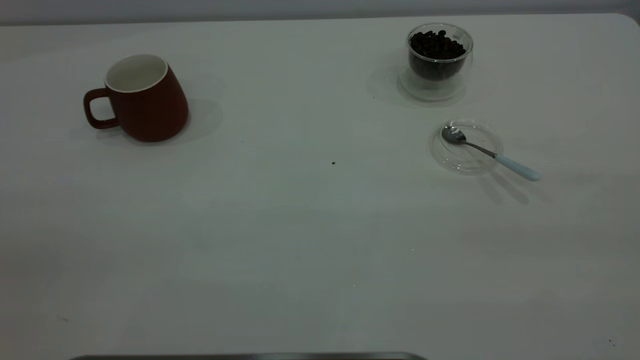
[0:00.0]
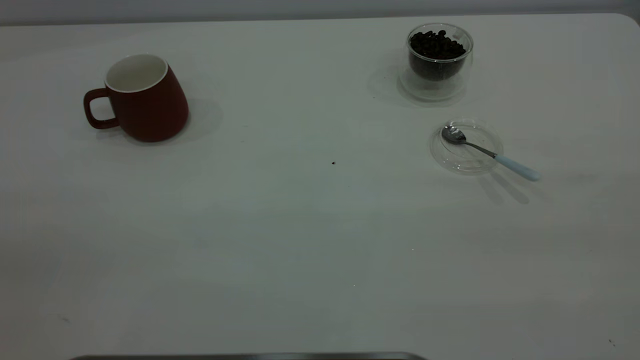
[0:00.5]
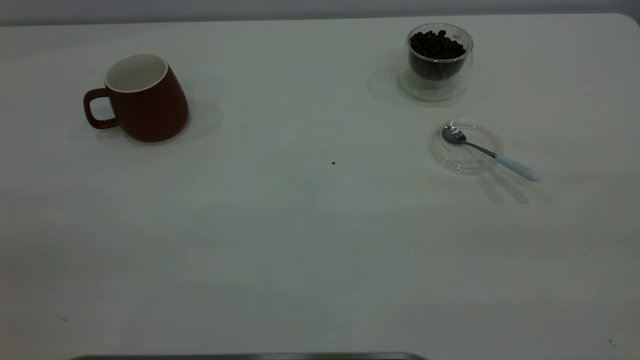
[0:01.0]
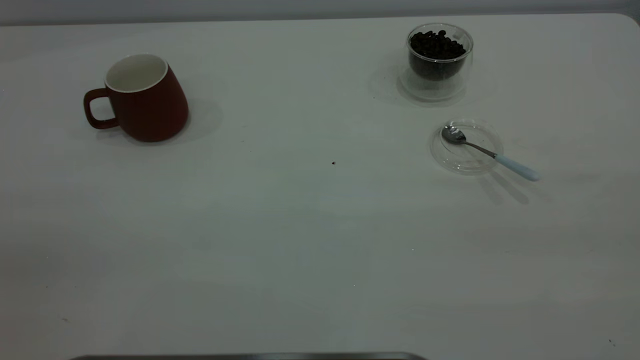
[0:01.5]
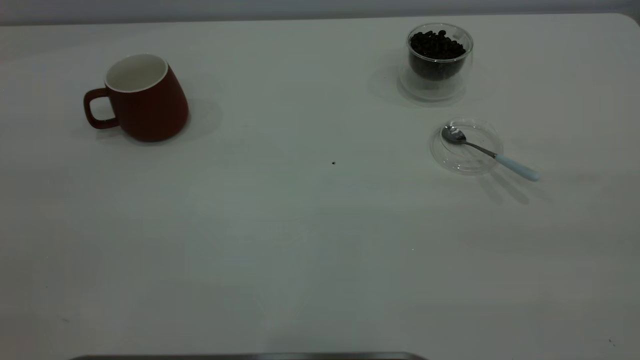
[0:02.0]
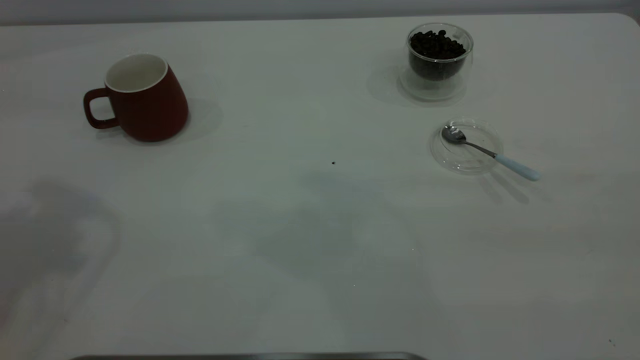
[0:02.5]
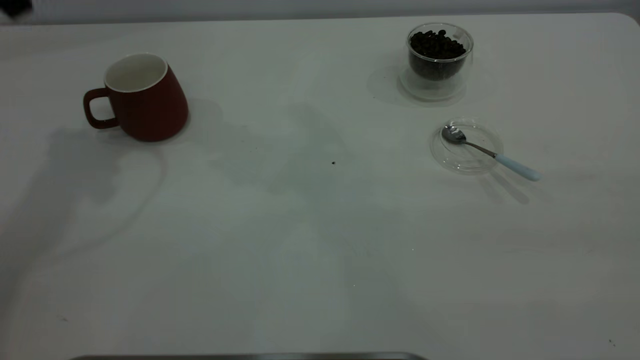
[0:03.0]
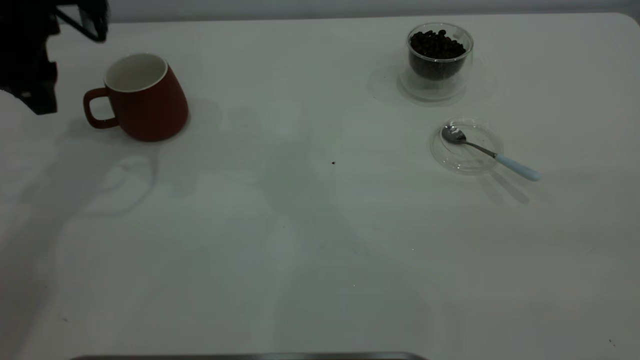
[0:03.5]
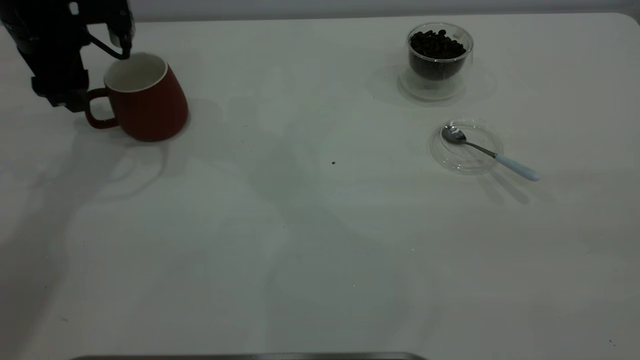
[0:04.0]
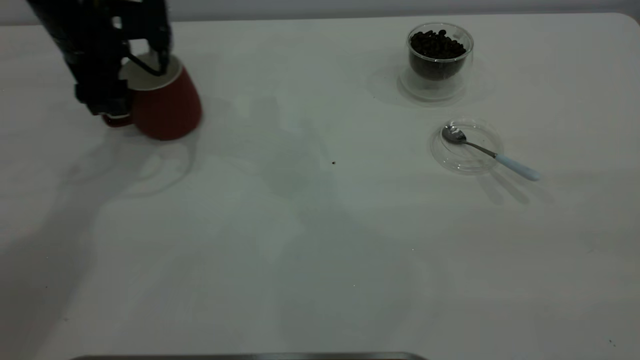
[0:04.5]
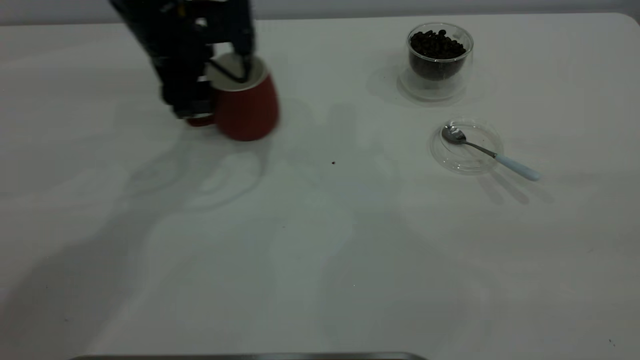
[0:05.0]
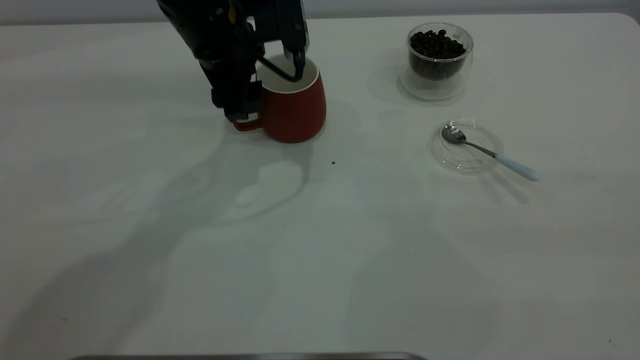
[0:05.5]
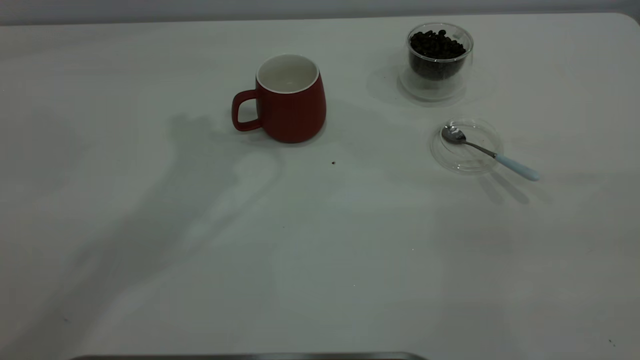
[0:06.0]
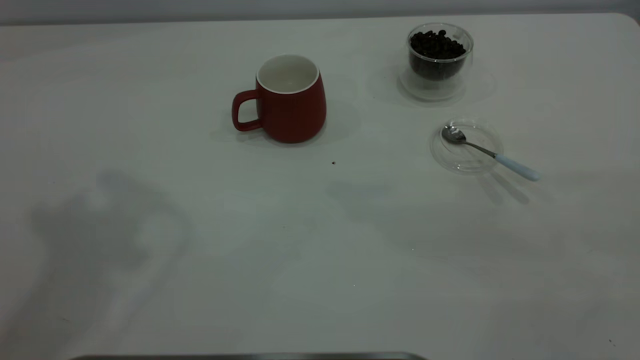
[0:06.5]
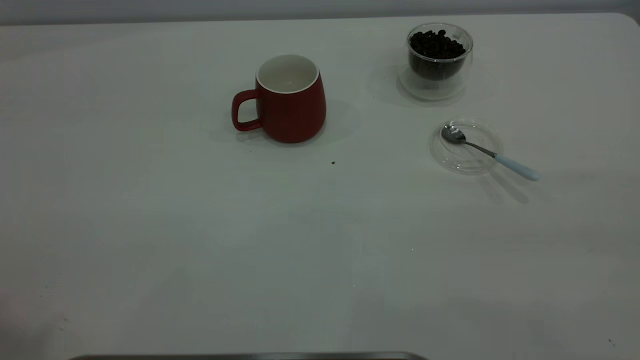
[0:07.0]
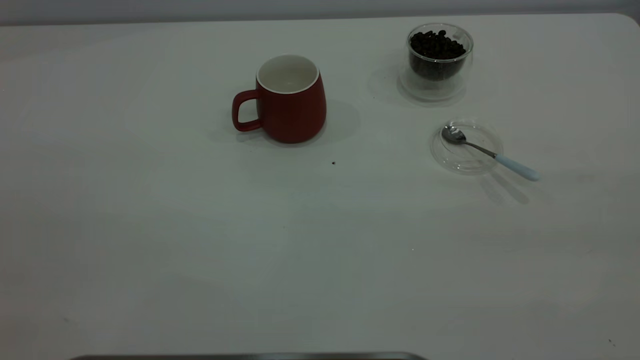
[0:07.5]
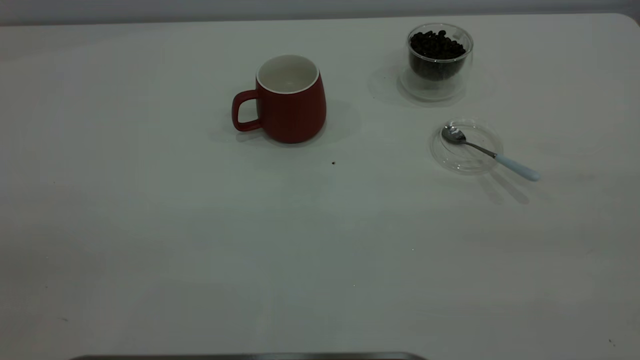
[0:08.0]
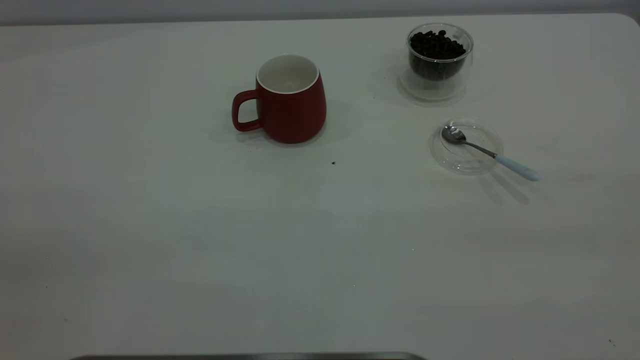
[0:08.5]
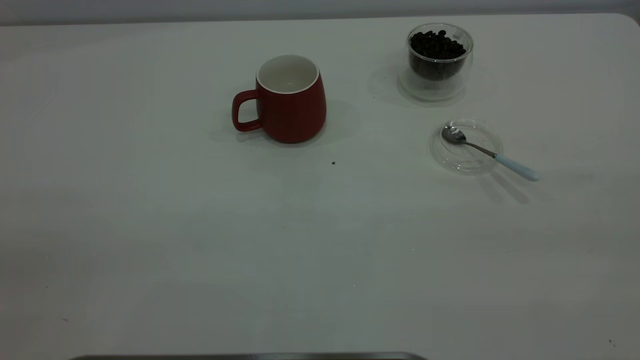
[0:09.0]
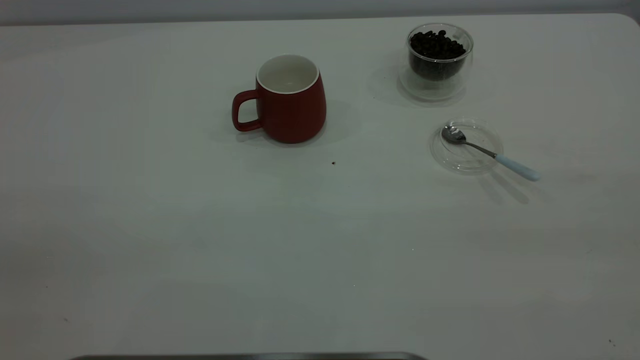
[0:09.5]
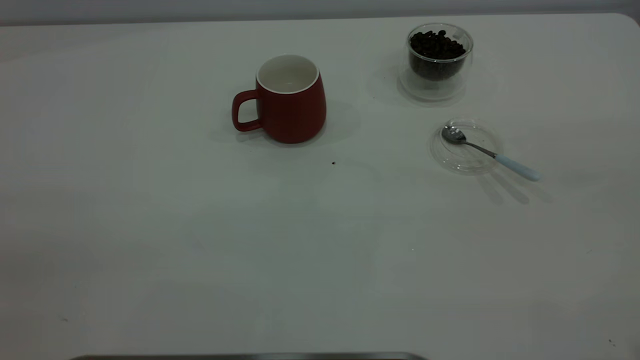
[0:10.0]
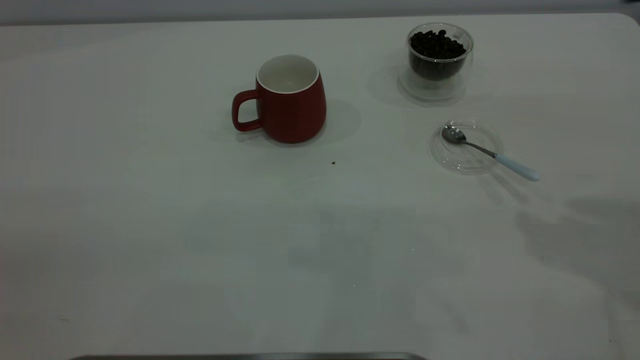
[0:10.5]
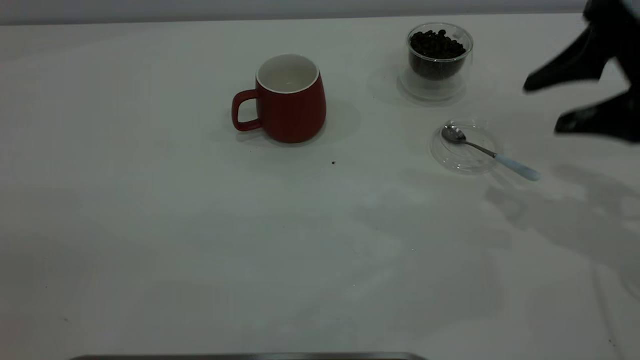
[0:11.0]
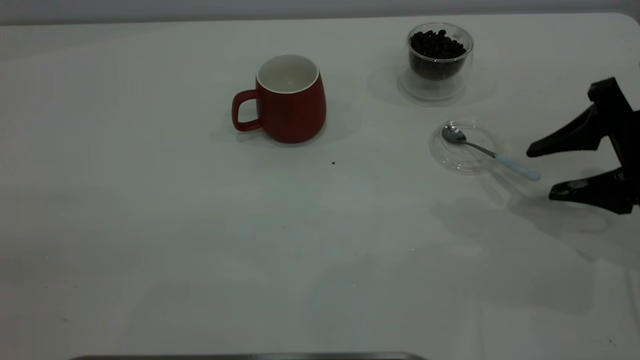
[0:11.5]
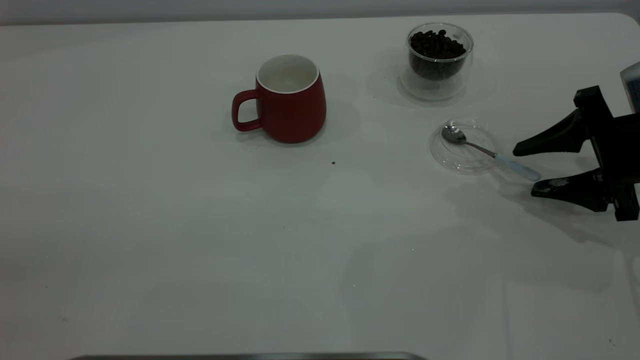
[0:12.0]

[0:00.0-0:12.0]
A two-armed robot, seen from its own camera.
Task of the whole recording: the left gripper place the red cup in the center of the table, the right gripper take the blue spoon from the cup lid and scoop out the coffee beans from the coffee cup and put them into the red cup, the right gripper put the spoon back into the cup lid.
Step, 0:00.0 to 0:05.5: Move the cup to the center of view.
0:02.0 to 0:04.0: The left gripper is displaced forward and downward by roughly 40 cm.
0:04.0 to 0:06.0: The left gripper travels upward and to the right by some 25 cm.
0:10.0 to 0:12.0: The right gripper heads downward and forward, covering roughly 40 cm.

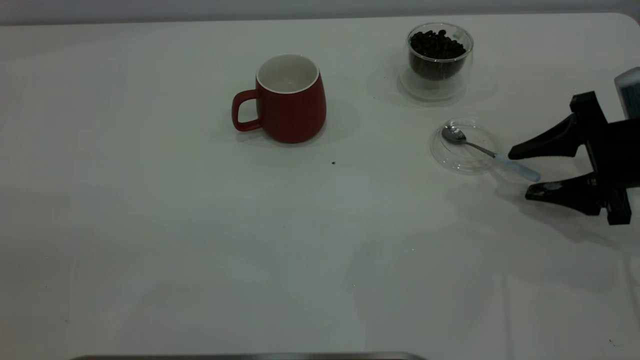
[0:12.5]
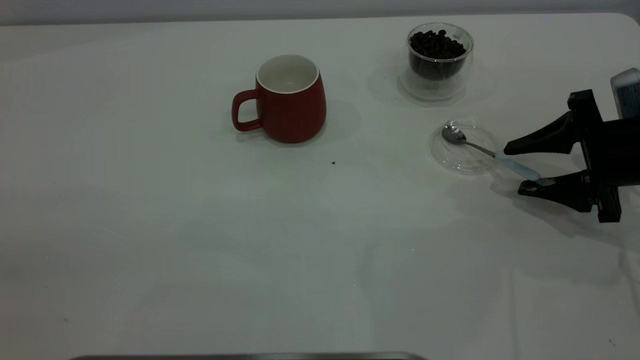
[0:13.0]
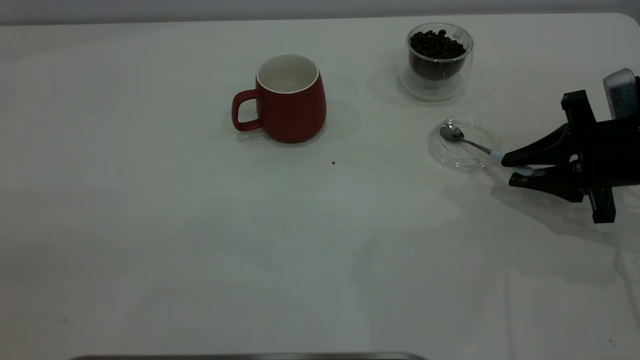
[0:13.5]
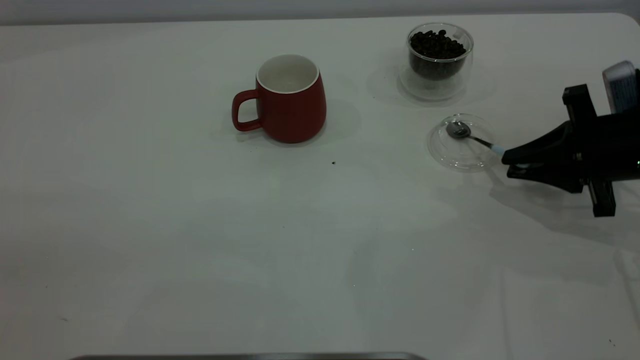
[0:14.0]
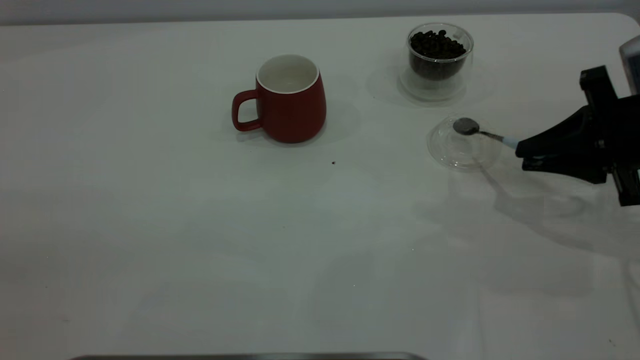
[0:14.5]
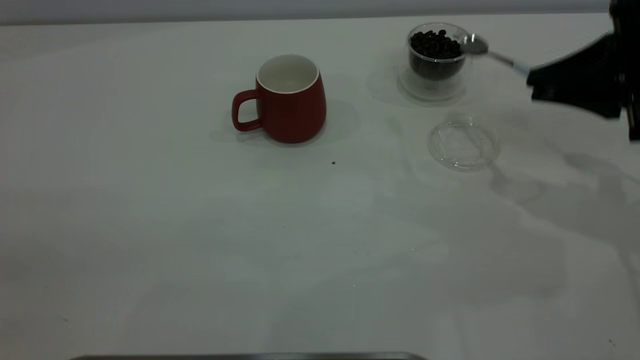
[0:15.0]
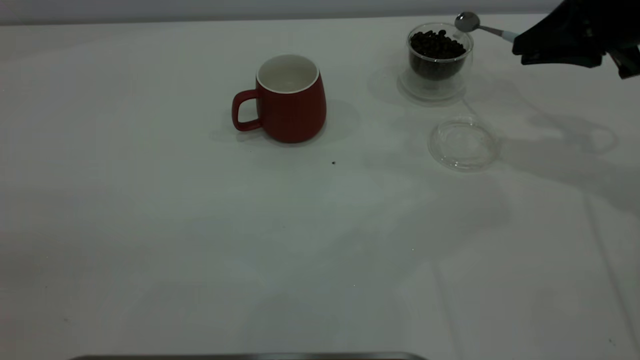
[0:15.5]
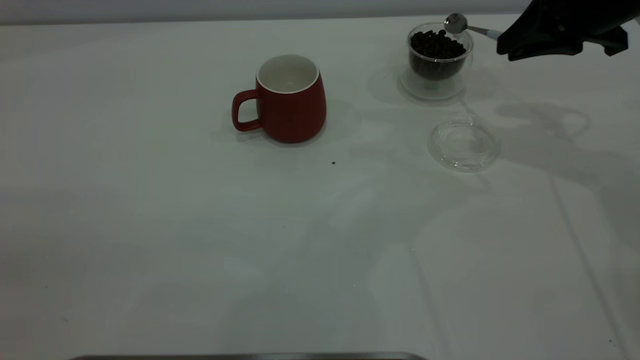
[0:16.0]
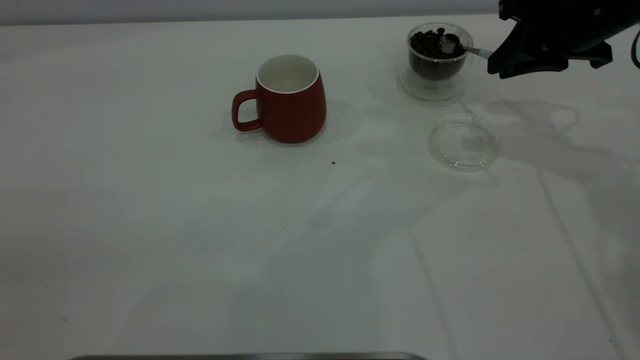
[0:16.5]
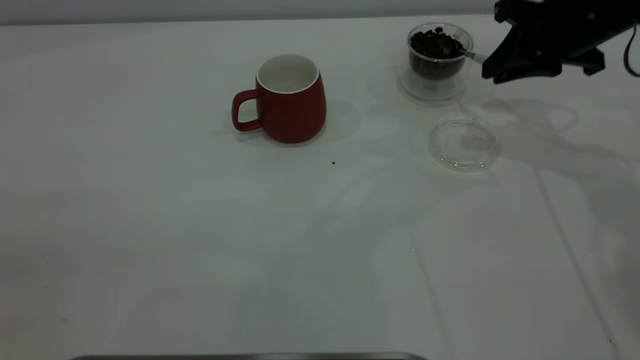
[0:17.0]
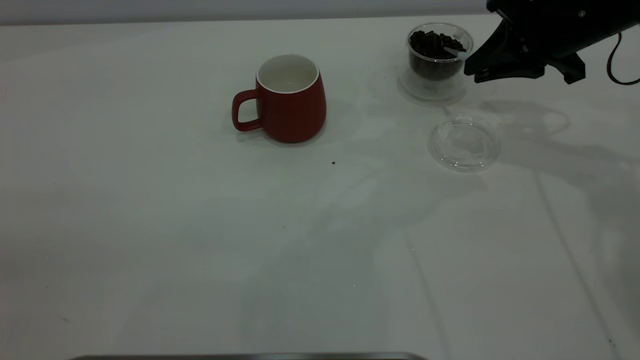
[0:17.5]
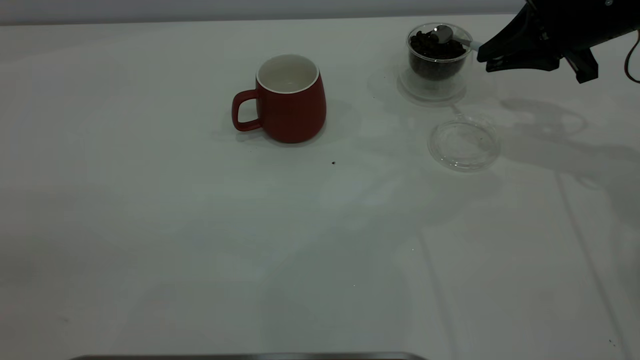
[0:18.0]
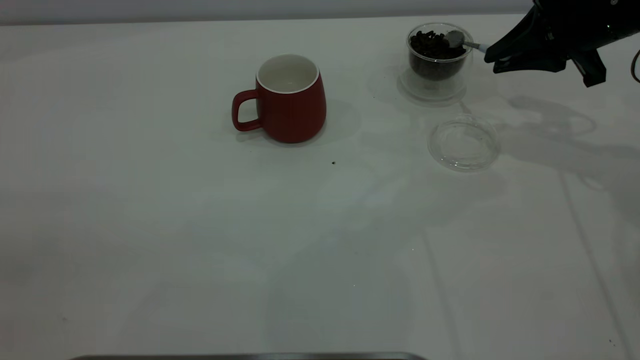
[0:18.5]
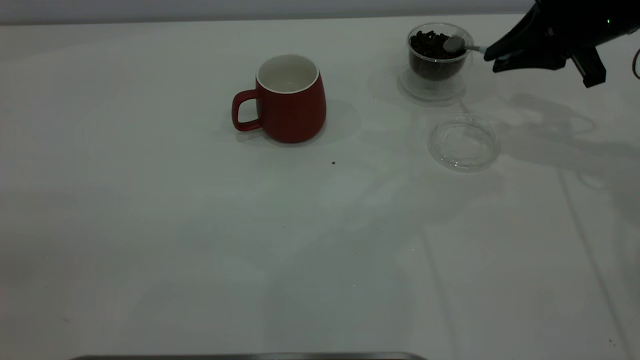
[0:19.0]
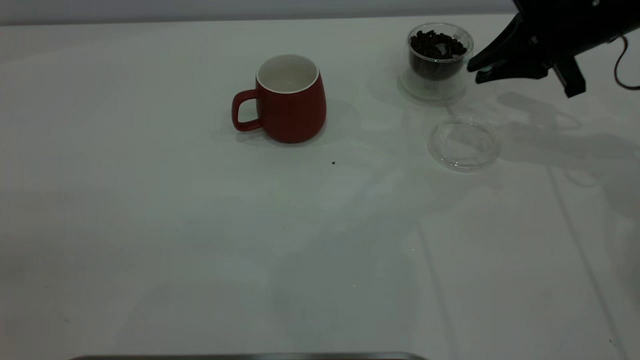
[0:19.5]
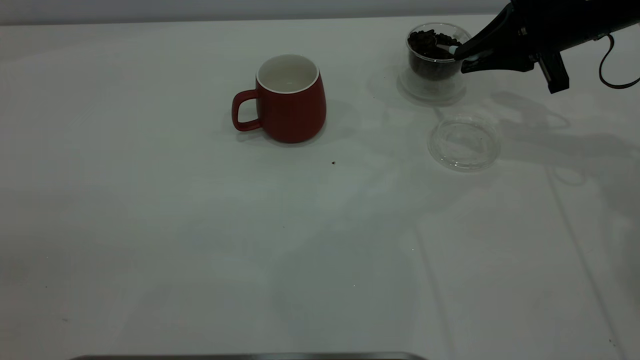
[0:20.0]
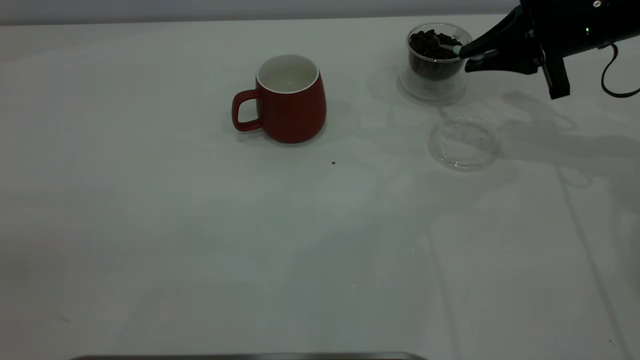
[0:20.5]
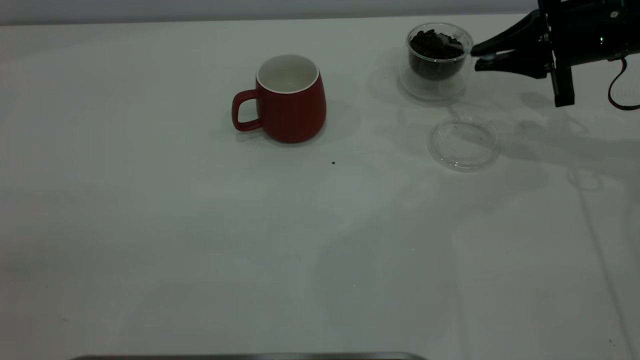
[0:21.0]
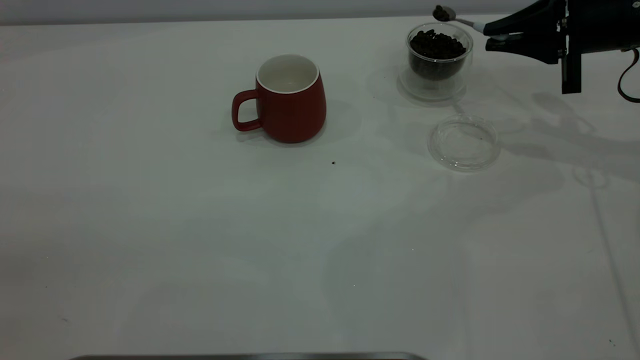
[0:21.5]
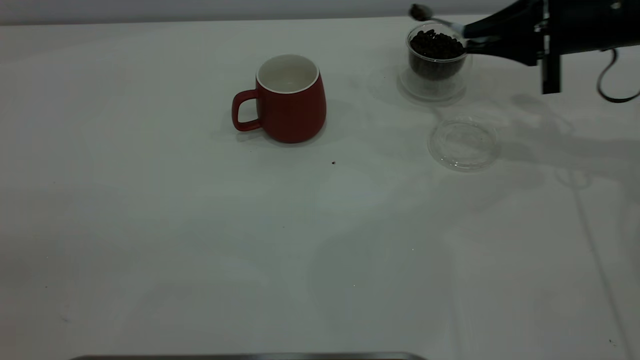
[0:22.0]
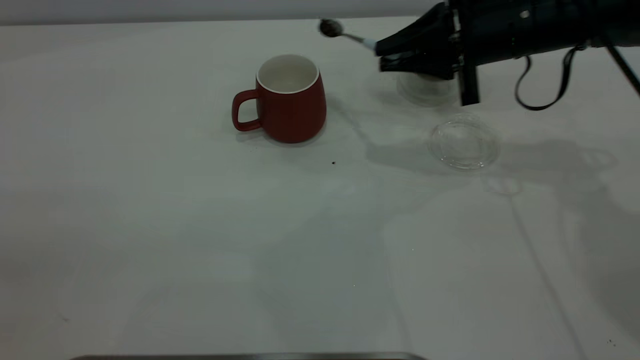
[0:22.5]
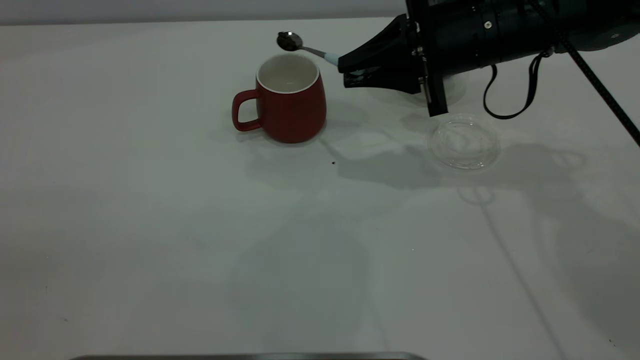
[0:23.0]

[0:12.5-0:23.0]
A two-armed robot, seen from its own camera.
Task of the whole recording: the left gripper place the red cup in the center of the table, the right gripper take the blue spoon from the cup lid and scoop out the coffee beans from the coffee cup and put them into the red cup, the right gripper put the spoon back into the cup lid.
Step, 0:12.5 to 0:14.5: Pick up the spoon.
0:12.5 to 0:14.5: The right gripper closes.
0:14.5 to 0:16.5: The right gripper moves forward and upward, some 15 cm.
0:21.0 to 0:23.0: The right gripper travels to the left by roughly 15 cm.
